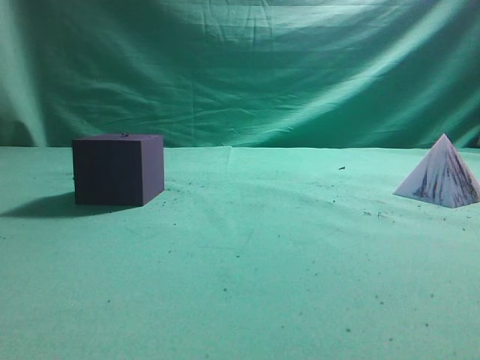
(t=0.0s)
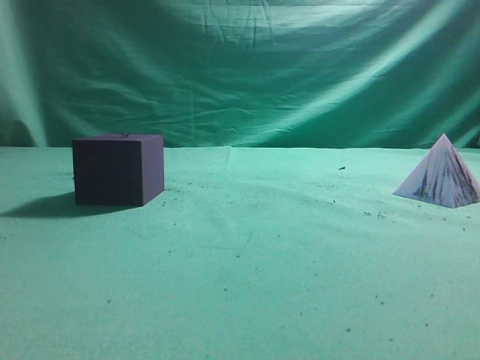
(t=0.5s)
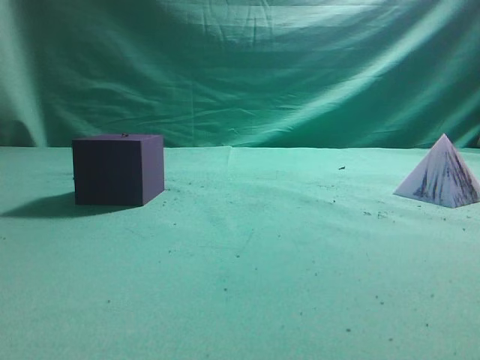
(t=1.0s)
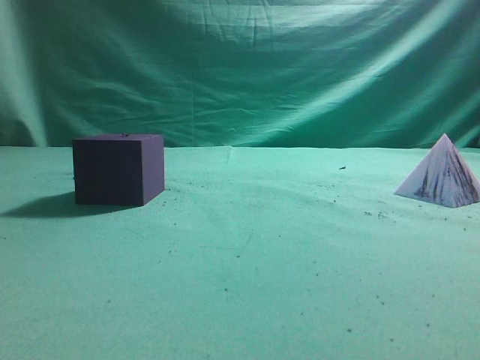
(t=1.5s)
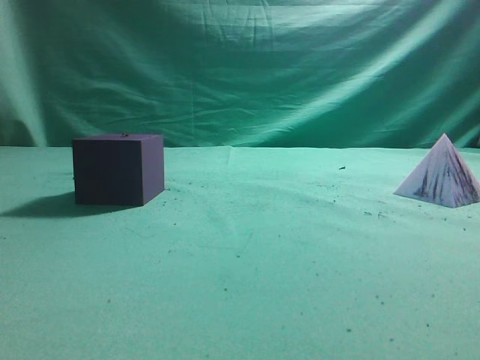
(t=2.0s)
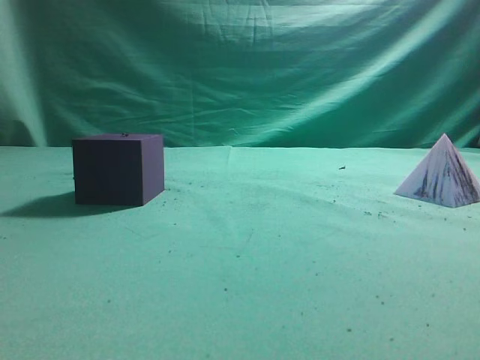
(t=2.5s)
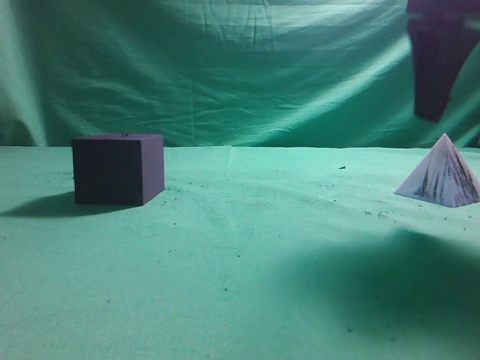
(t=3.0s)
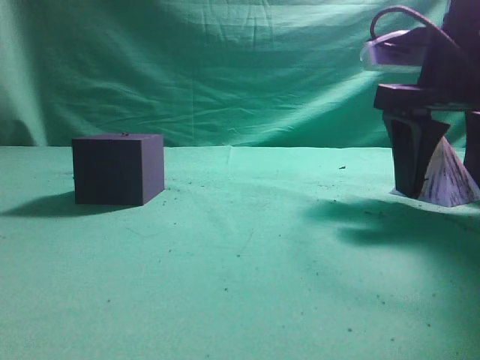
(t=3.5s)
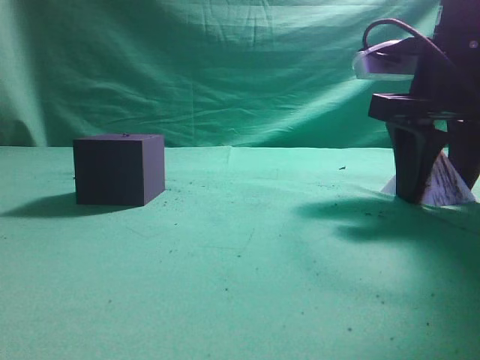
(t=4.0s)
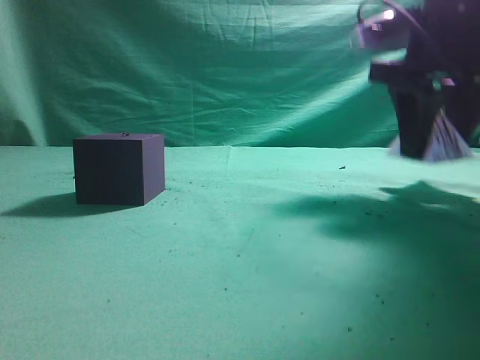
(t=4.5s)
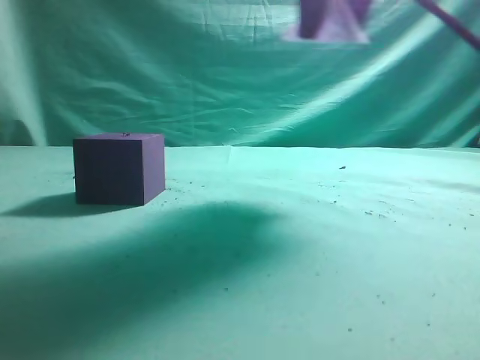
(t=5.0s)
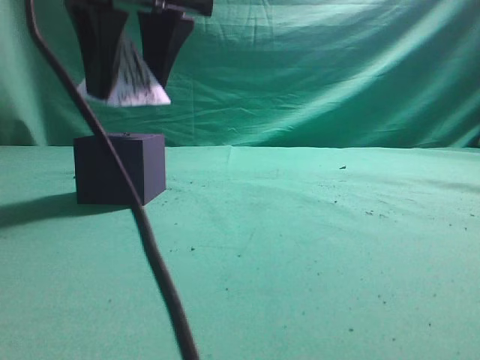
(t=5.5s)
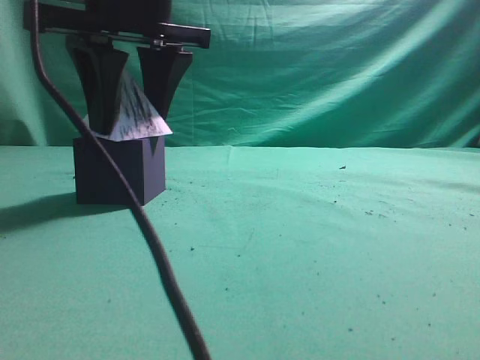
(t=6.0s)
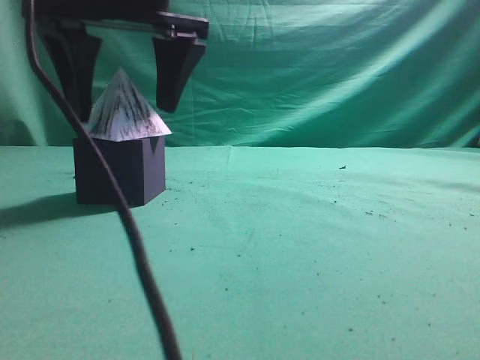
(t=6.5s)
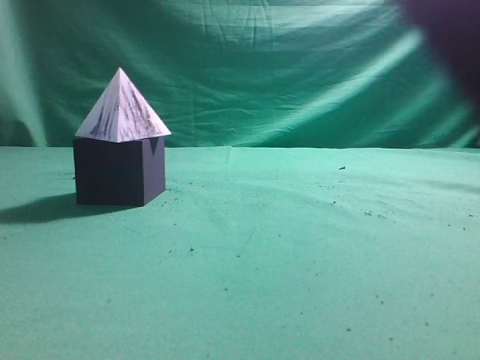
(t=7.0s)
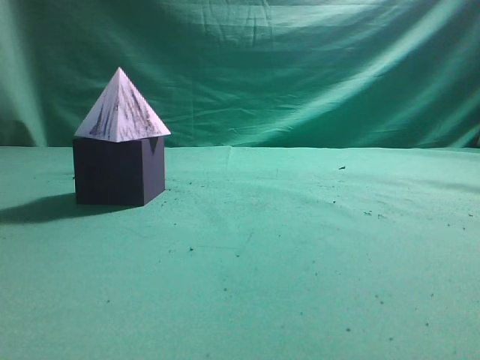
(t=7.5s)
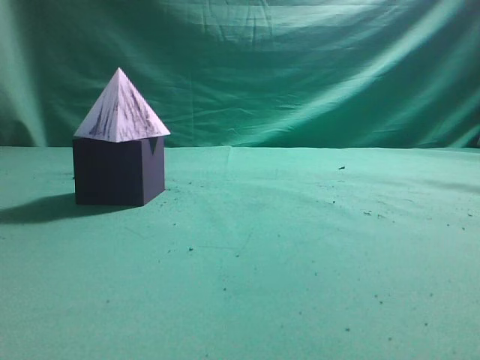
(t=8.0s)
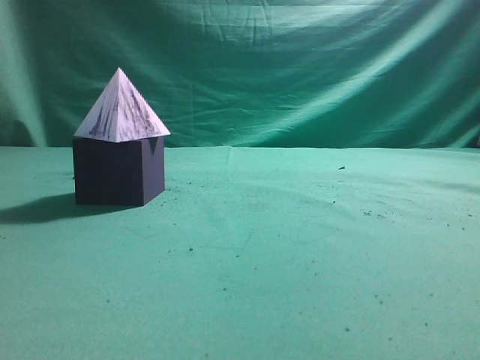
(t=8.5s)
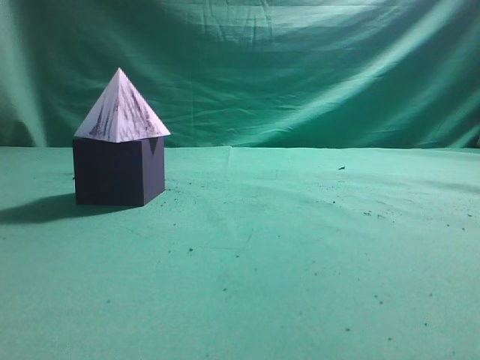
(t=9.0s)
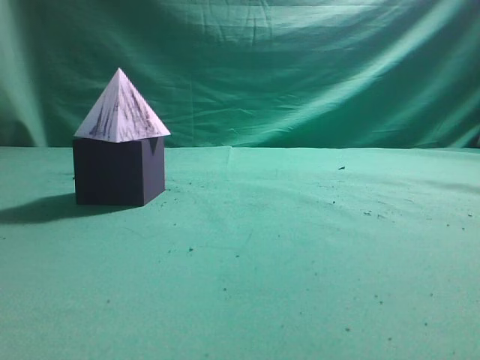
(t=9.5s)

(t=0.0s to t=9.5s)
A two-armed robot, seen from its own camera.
Task of the whole recording: pick up the square pyramid from the table and place it on the cube block.
Step, t=0.0s - t=4.5s: Grasp the triangular block.
Step, t=5.0s - t=6.5s: Place the block onto the cube-shaped block.
t=2.0s - t=4.0s: The right gripper heads forward and downward, covering approximately 30 cm, and opens up.
t=4.0s - t=5.5s: The right gripper heads to the left and upward, covering about 30 cm.
t=5.5s - t=7.5s: The right gripper heads to the right, backward and upward, covering roughly 30 cm, and closes up.
